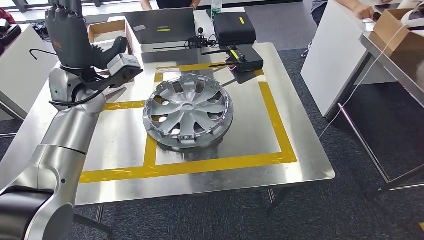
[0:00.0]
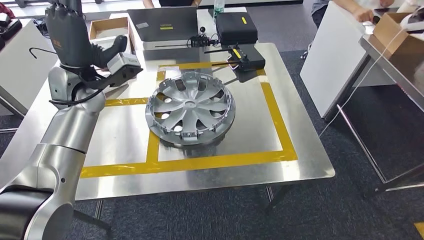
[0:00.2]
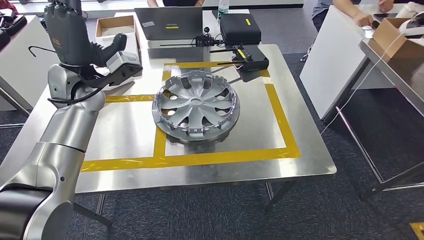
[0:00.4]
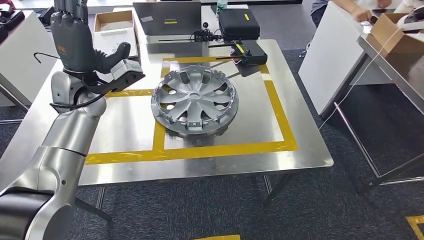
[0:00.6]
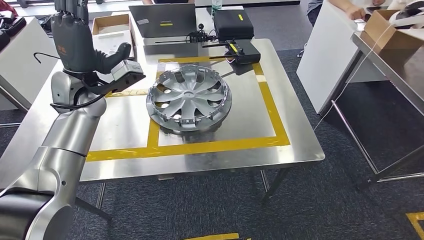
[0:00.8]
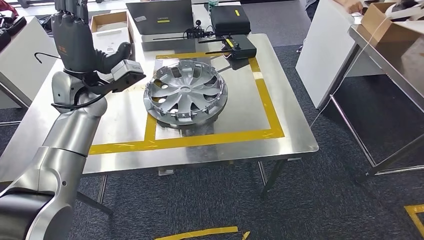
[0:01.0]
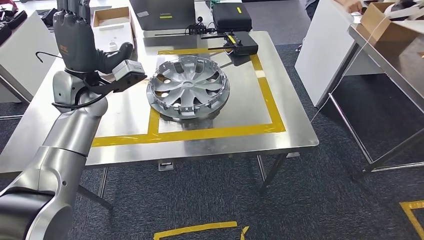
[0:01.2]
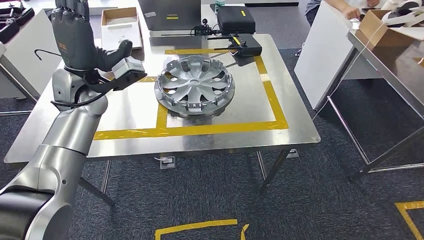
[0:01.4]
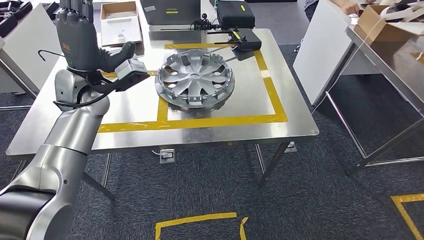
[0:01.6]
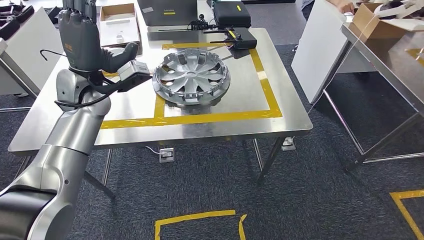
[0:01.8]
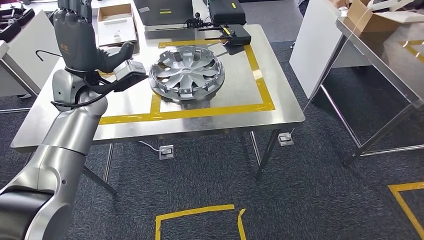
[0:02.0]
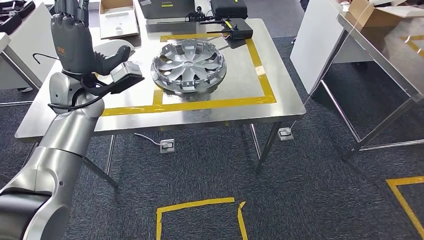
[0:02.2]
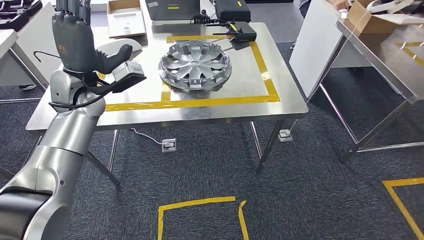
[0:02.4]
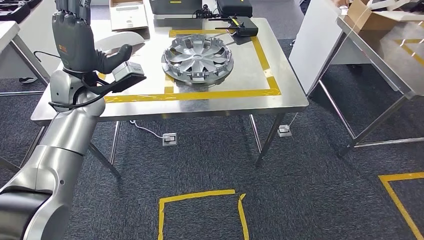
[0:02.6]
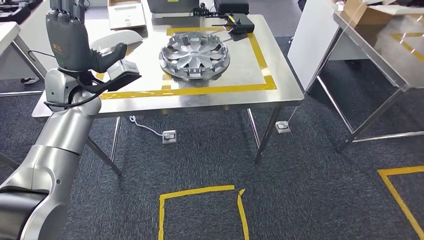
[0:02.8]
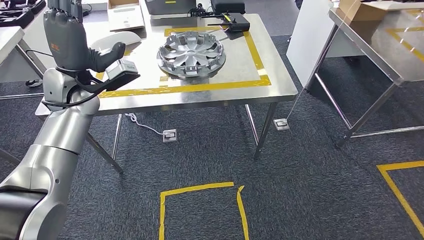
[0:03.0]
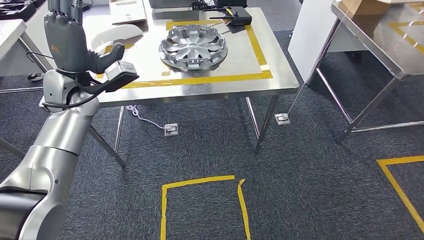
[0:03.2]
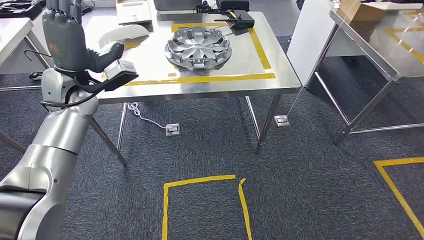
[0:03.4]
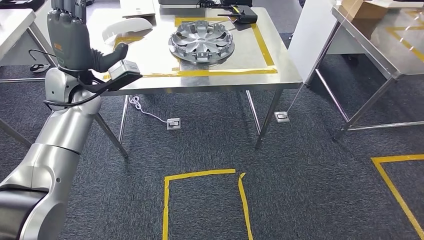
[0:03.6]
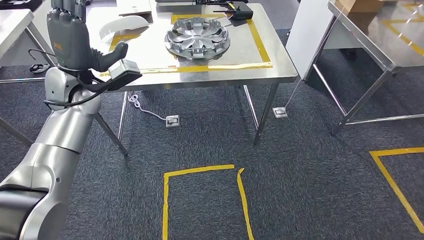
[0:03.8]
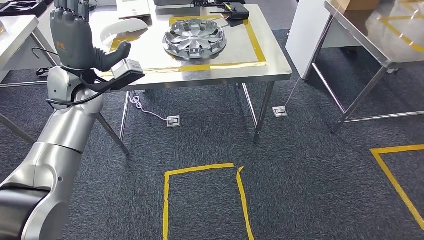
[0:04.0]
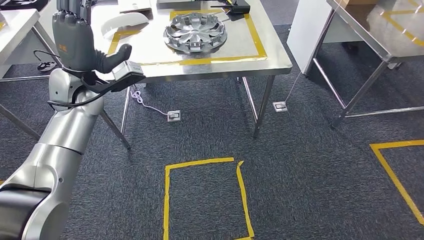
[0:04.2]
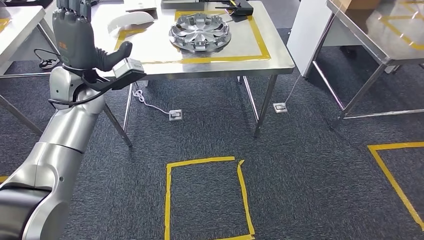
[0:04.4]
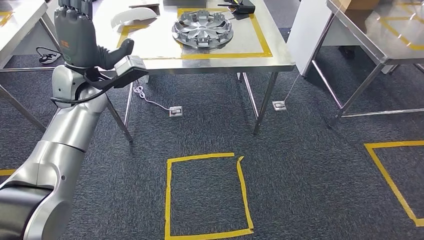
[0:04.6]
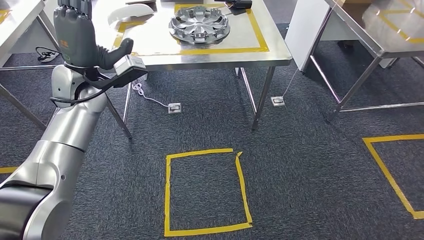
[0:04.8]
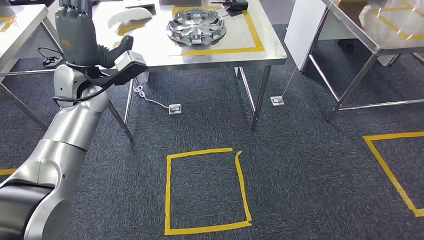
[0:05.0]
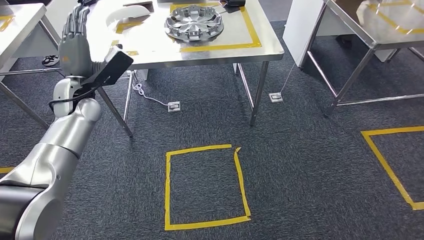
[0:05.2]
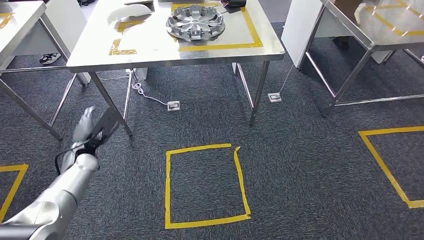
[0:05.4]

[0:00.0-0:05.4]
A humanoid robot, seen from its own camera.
Step, 0:02.0 to 0:05.4: Move to the initial position of the shelf.

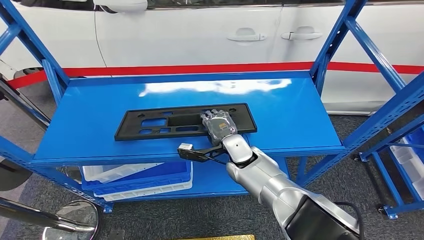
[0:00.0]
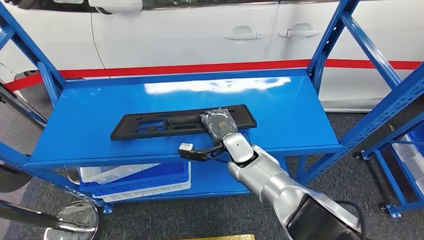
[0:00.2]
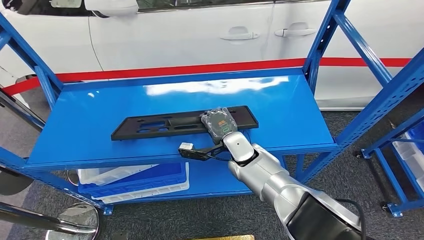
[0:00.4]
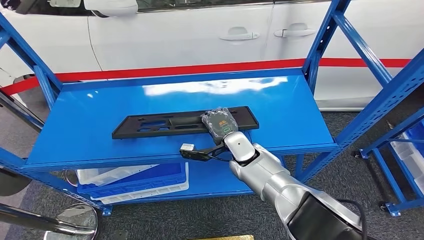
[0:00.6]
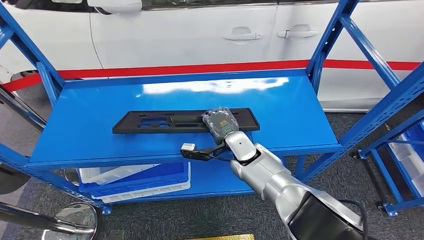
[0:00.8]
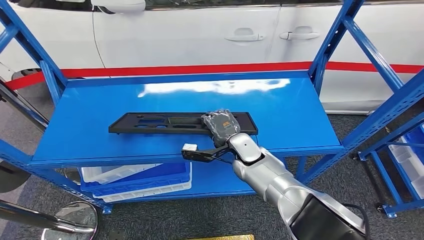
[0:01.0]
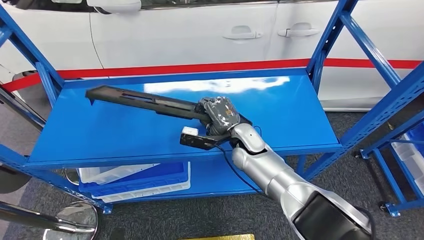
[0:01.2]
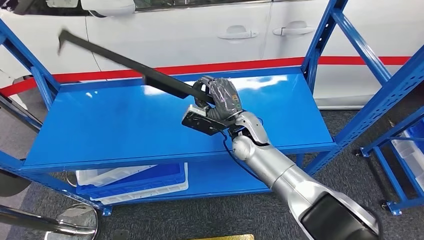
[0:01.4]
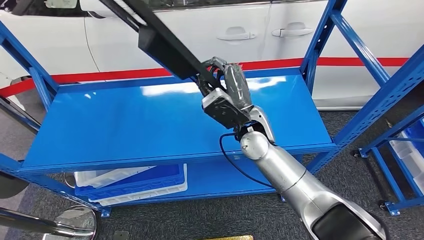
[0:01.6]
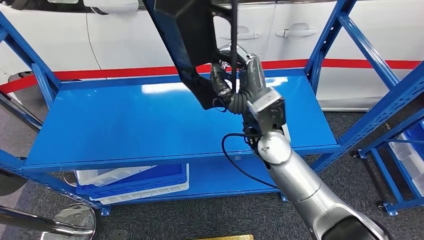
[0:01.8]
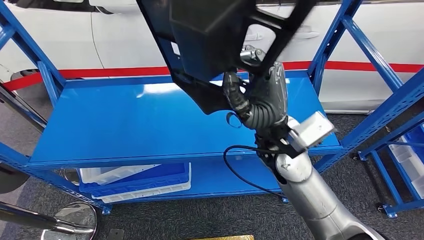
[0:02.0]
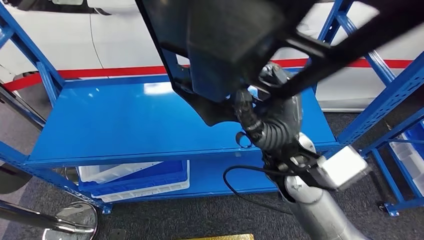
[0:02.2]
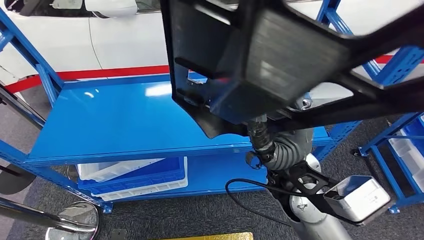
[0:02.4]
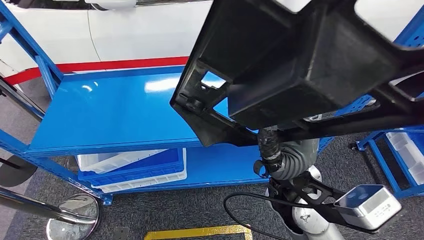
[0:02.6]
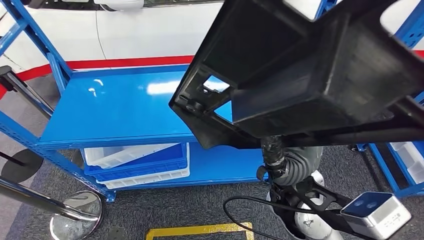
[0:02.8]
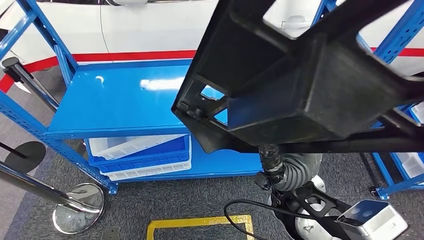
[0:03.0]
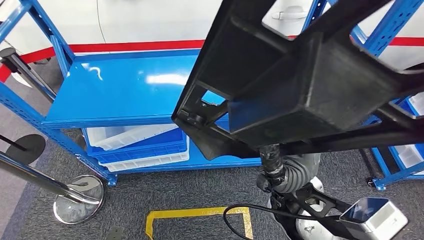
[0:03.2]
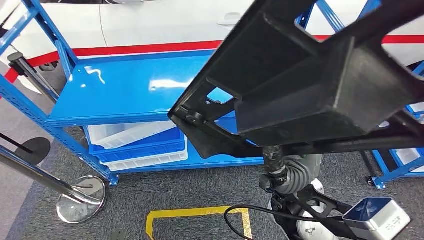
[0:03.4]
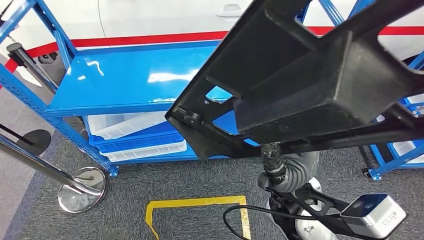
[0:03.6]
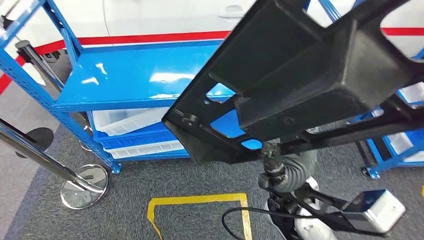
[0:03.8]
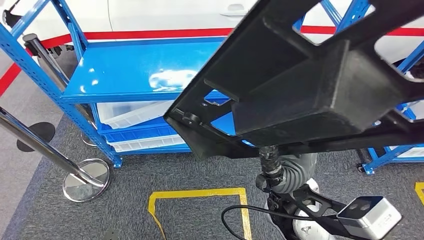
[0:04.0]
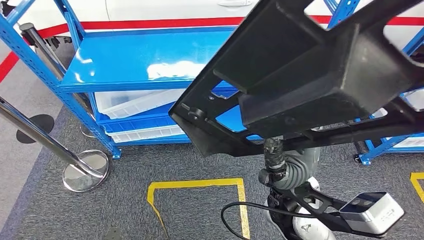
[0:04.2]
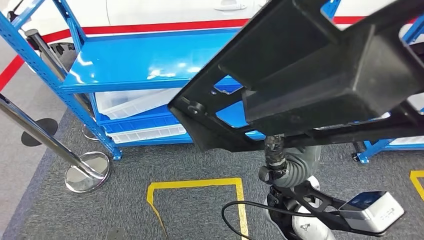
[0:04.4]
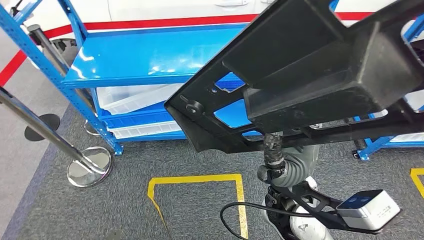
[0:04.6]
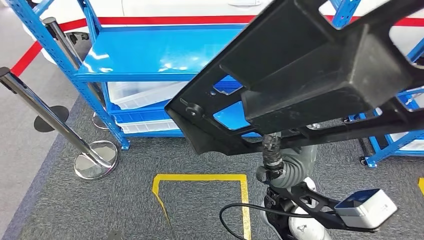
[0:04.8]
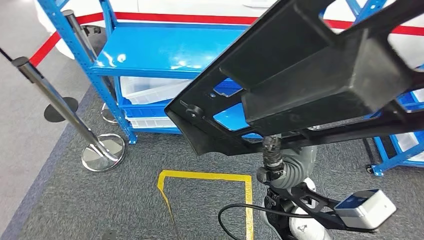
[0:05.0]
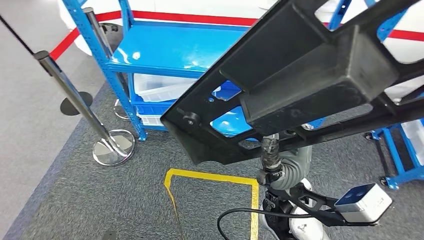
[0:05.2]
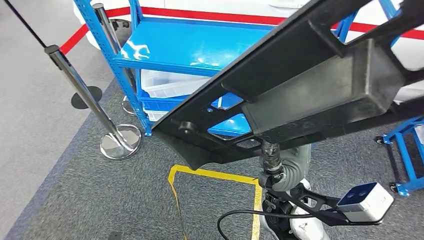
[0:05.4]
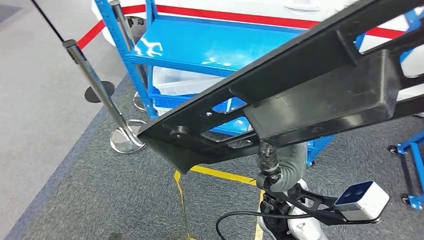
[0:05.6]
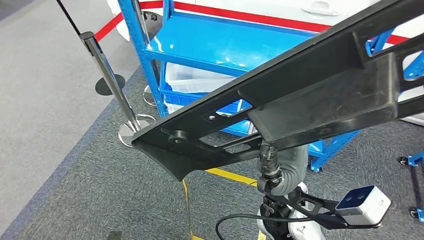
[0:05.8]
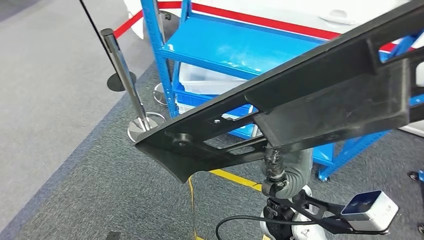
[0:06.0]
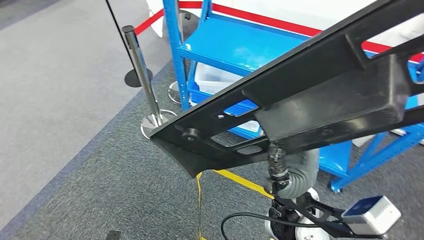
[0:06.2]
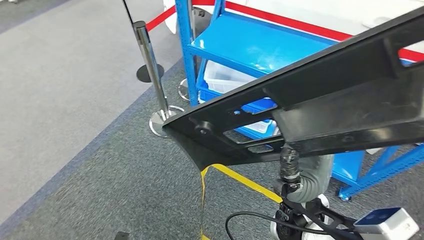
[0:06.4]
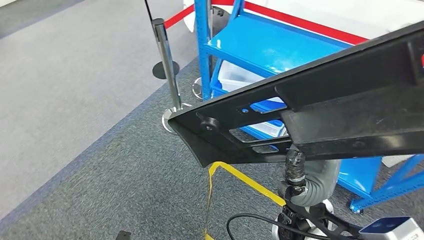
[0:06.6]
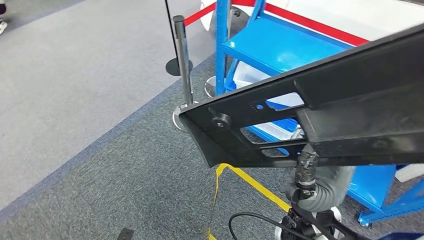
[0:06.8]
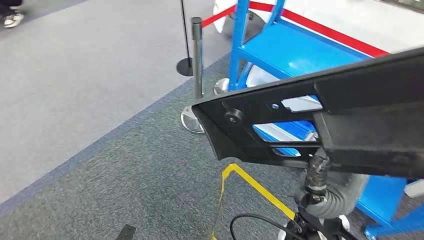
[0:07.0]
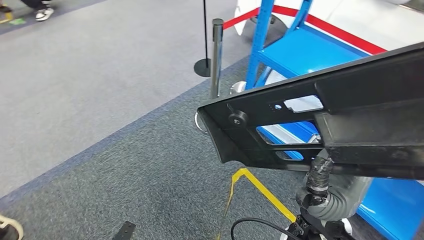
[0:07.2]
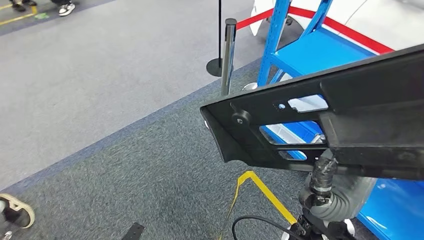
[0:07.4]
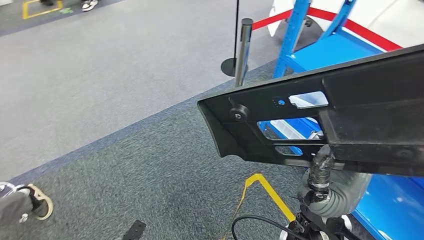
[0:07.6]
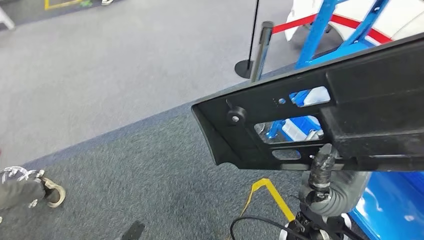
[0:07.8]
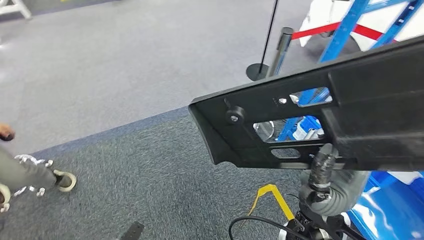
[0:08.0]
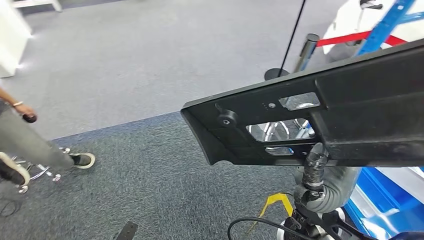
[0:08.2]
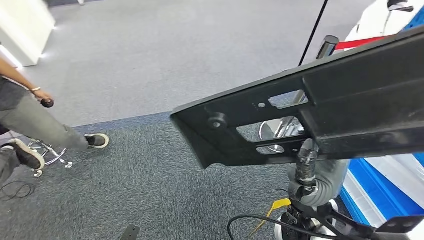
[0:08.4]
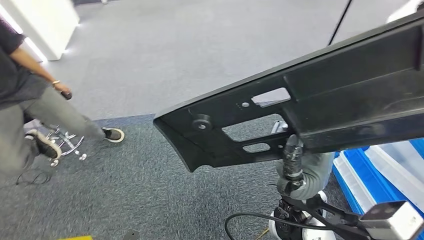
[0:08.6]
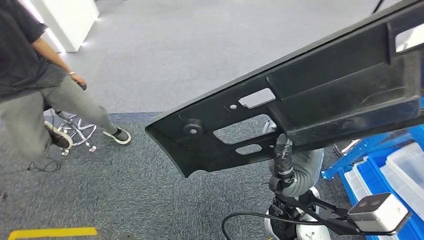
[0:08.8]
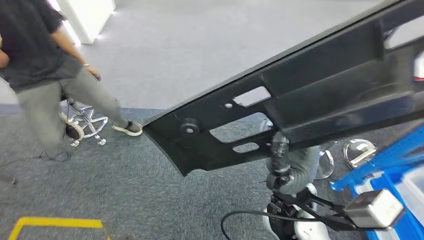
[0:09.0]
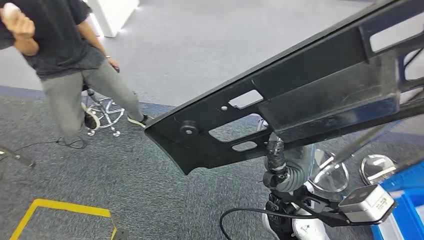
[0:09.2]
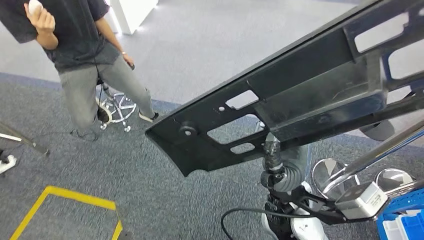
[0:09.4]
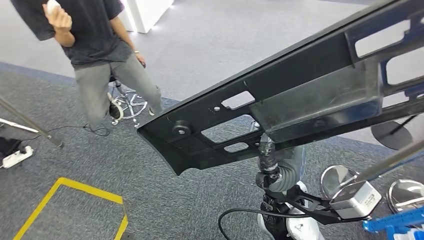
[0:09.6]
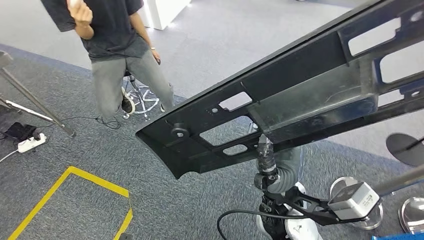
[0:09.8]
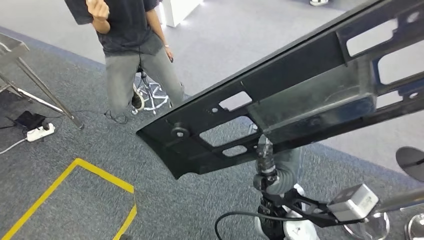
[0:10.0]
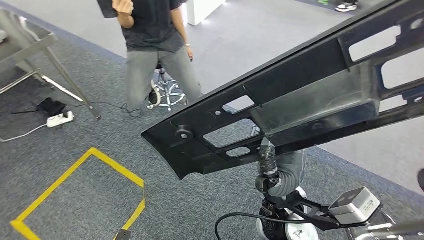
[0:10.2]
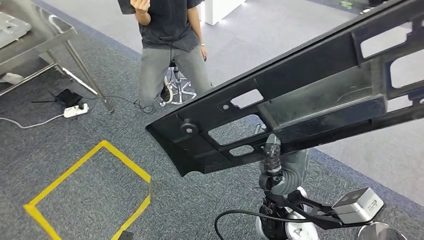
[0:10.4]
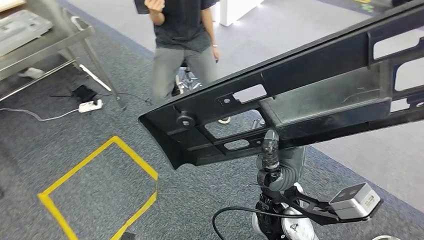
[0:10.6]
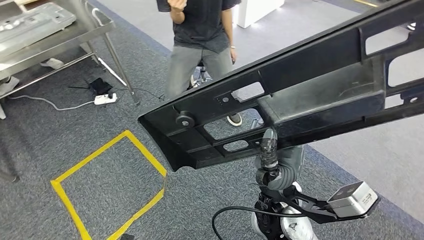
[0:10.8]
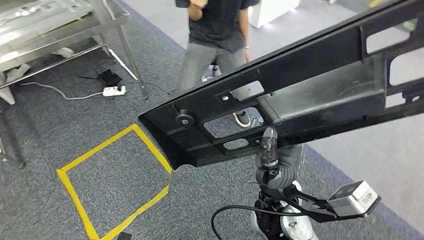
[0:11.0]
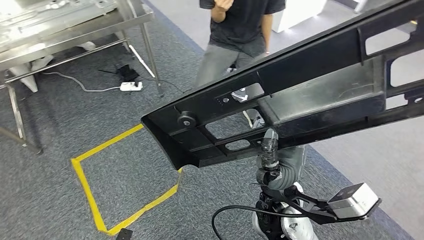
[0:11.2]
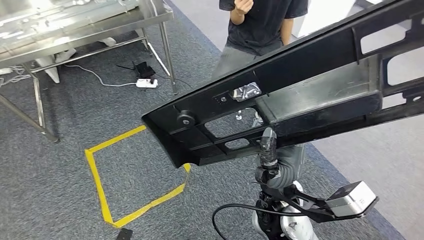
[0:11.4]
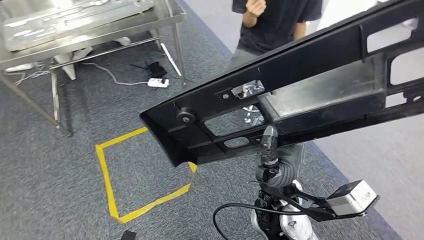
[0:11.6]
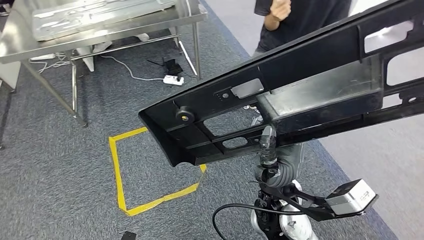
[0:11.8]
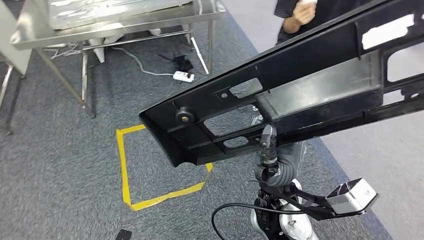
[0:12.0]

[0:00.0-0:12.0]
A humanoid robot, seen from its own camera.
Step, 0:00.0 to 0:02.2: Pick up the large material from the shelf.
